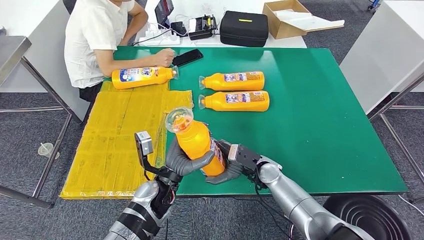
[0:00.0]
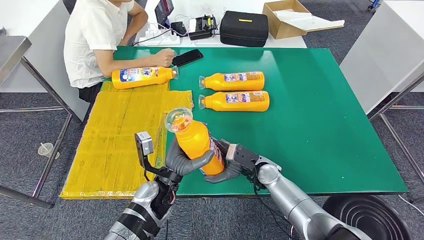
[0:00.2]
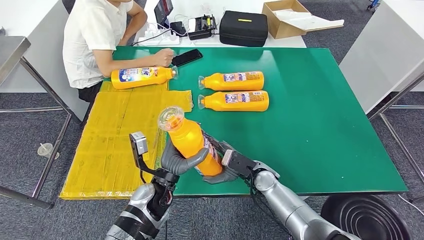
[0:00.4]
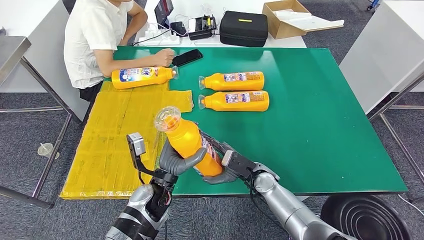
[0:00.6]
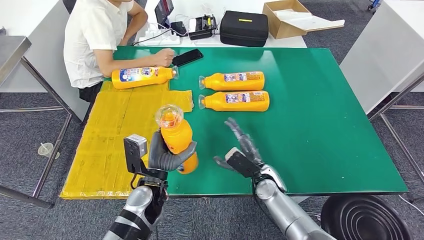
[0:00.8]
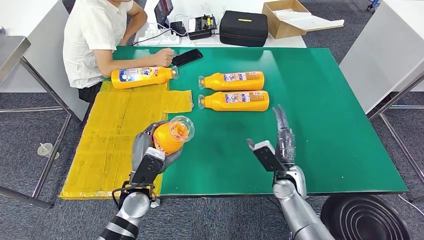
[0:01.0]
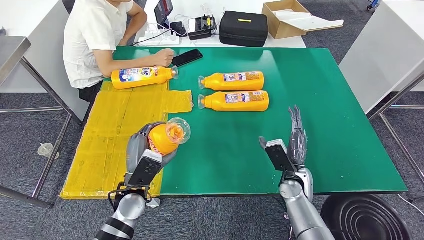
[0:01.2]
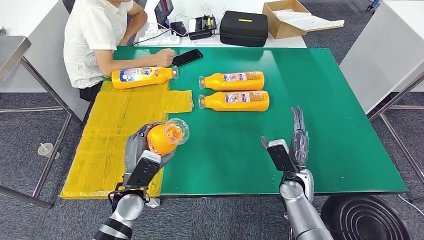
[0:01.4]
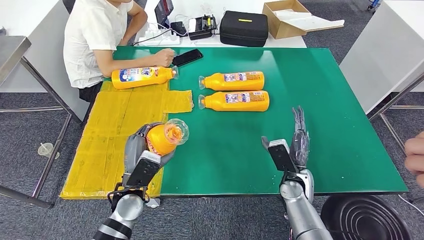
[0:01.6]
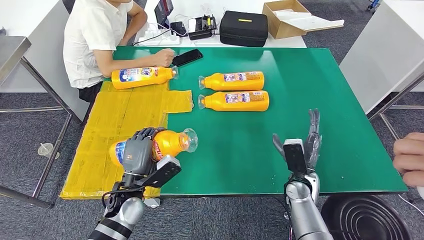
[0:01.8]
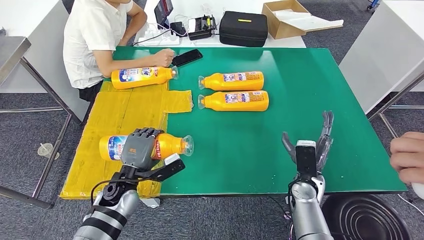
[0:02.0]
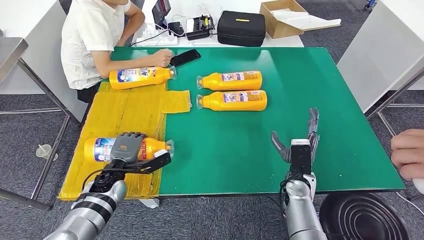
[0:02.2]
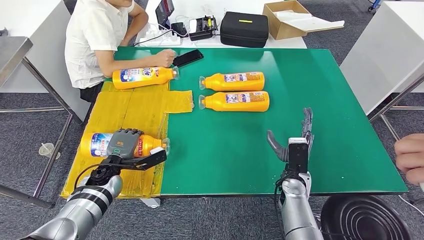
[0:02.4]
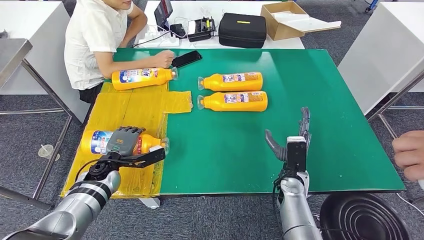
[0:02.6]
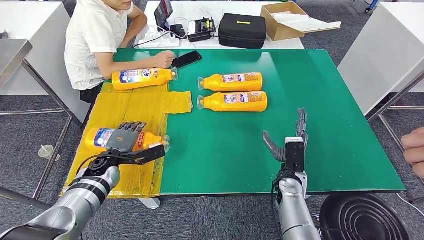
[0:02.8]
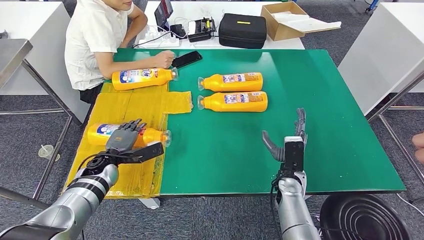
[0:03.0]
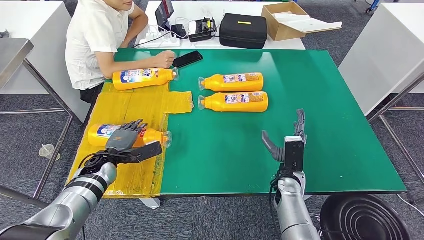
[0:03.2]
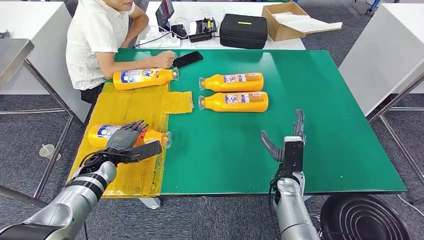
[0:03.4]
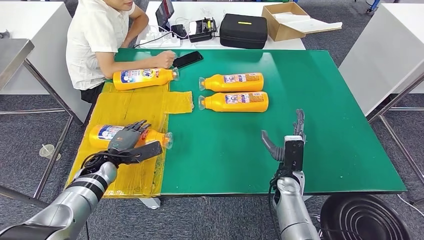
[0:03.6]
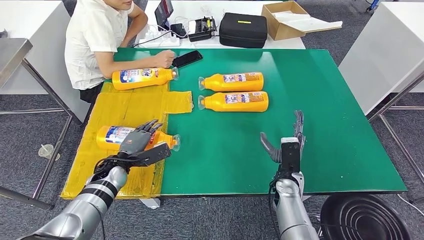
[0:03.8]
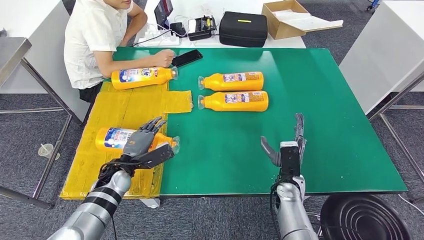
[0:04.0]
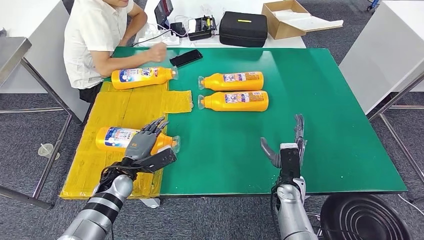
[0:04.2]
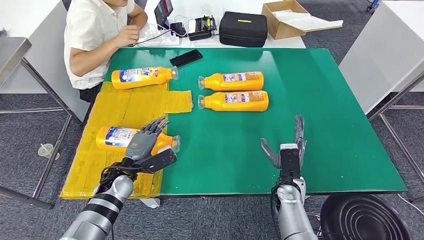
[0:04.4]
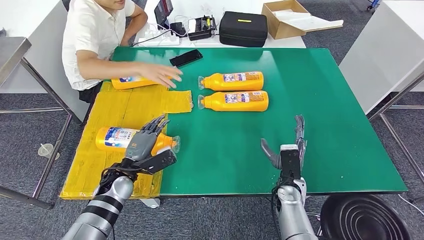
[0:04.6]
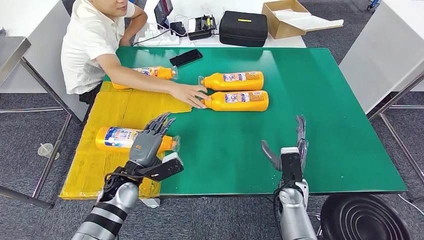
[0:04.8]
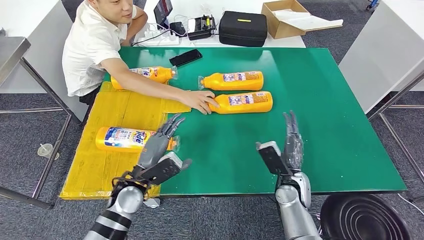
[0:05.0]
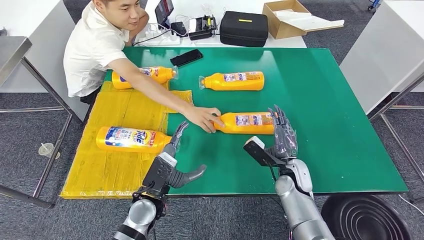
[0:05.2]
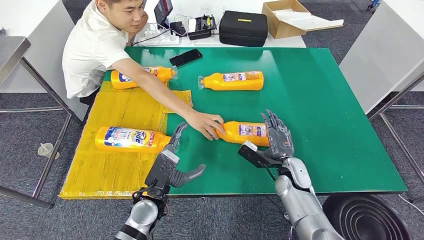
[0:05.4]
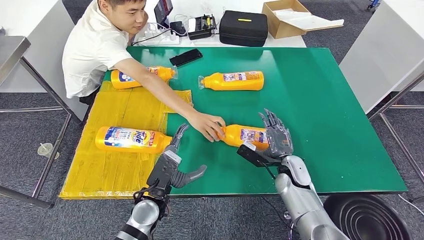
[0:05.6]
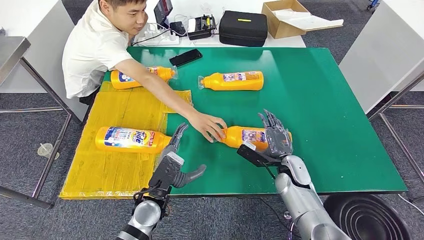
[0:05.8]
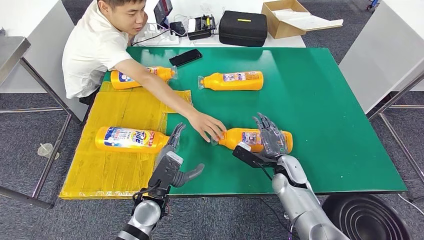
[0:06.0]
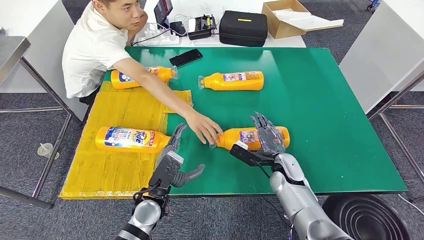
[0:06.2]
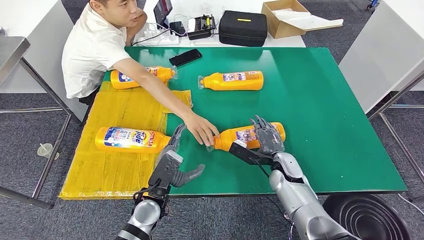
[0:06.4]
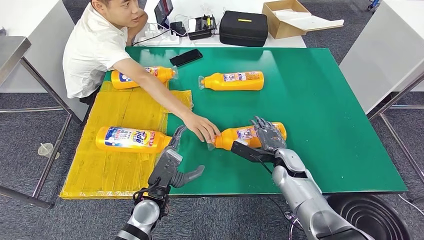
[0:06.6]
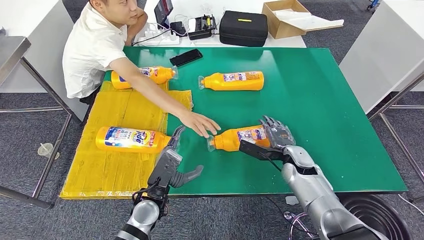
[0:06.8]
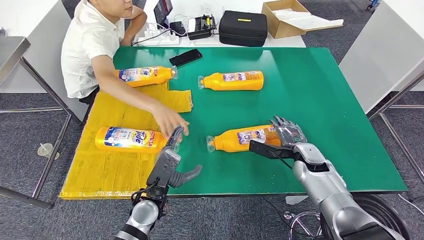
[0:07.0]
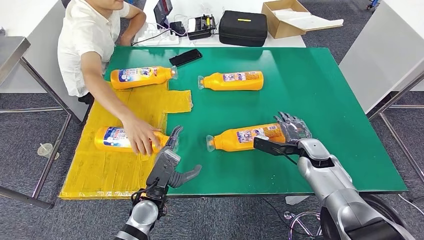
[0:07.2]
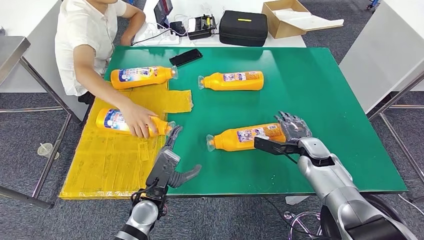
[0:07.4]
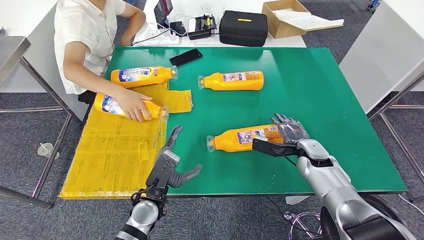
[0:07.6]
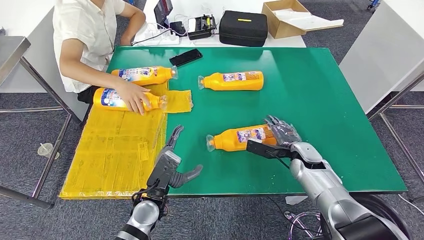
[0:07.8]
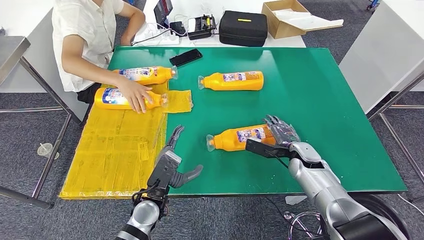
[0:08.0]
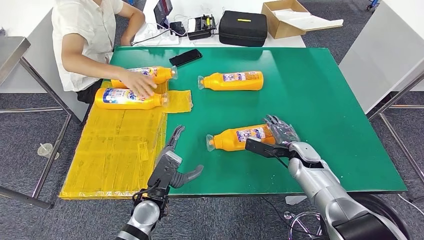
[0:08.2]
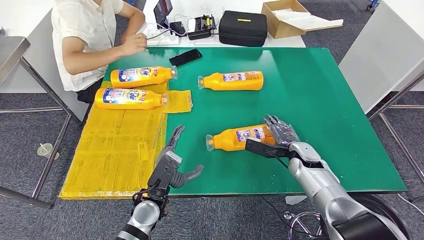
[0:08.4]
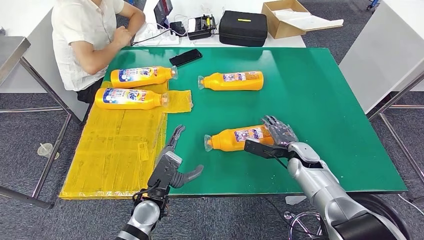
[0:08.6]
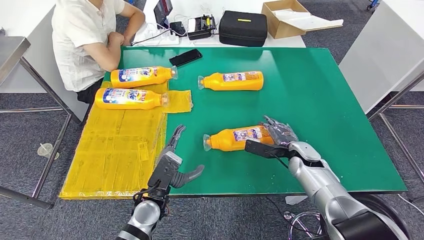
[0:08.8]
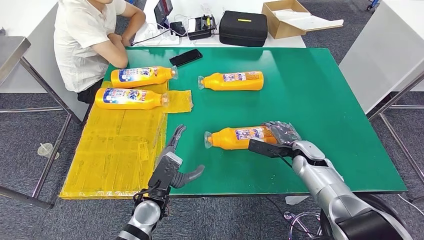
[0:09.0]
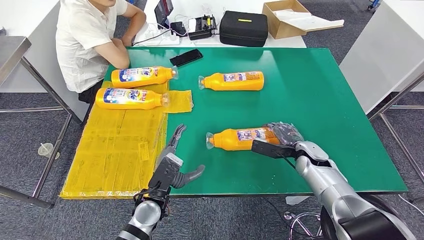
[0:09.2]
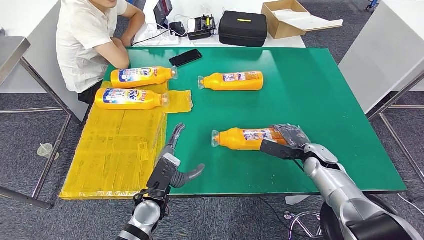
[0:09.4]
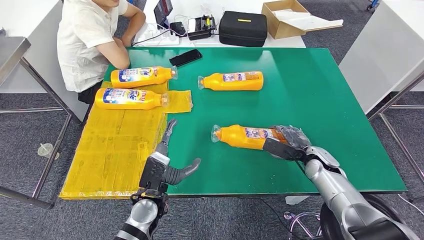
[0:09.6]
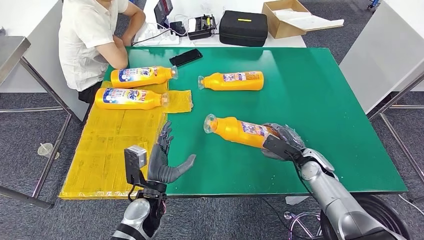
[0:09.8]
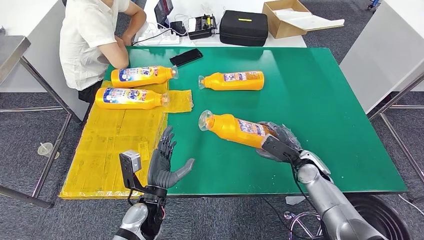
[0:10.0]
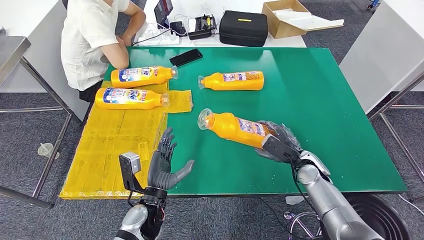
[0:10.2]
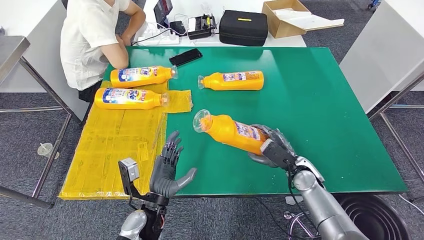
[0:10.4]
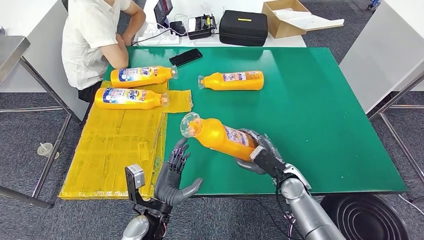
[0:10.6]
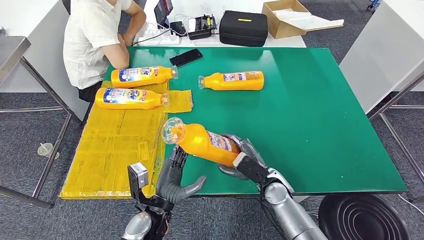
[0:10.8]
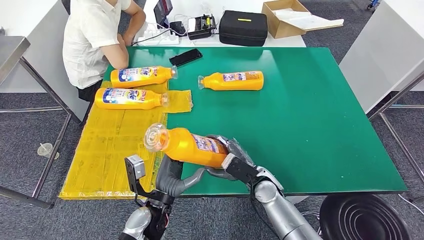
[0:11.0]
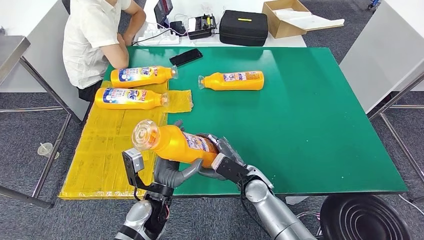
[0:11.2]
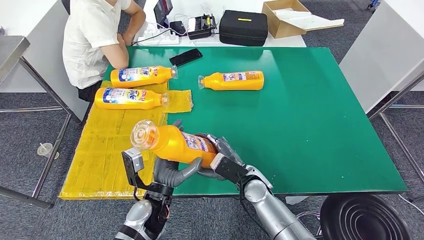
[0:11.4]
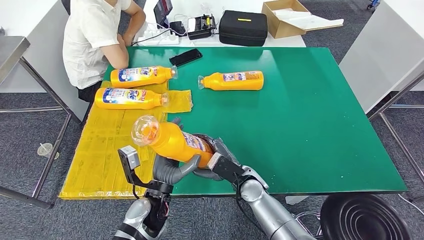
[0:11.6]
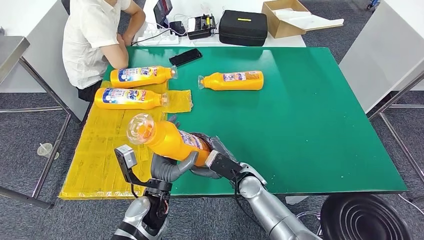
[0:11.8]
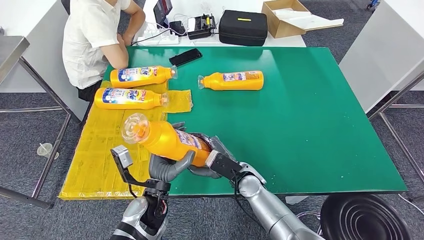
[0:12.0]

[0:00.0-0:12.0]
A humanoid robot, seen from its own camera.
Step, 0:01.8 to 0:03.4: Flip the fast-moving consumer goods bottle to the front side.
0:00.0 to 0:01.6: The left hand goes roughly 10 cm to the left; the right hand travels to the right by about 10 cm.
0:03.0 to 0:04.4: The left hand goes roughly 5 cm to the right.
0:07.6 to 0:09.0: The hands stay close to where they were, moving slightly.
0:09.0 to 0:10.4: The right hand travels backward by some 5 cm.
0:10.4 to 0:12.0: The right hand heads to the left, covering some 15 cm.

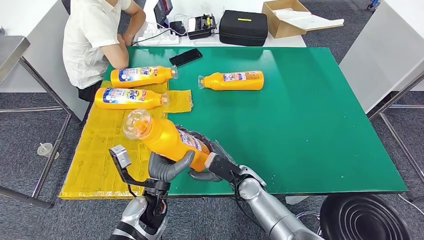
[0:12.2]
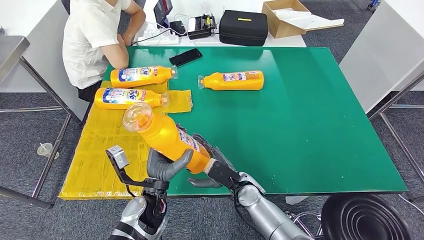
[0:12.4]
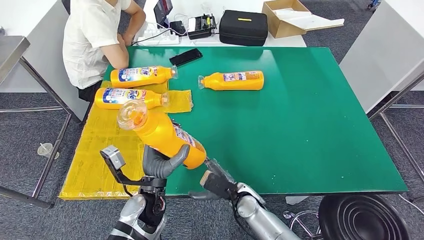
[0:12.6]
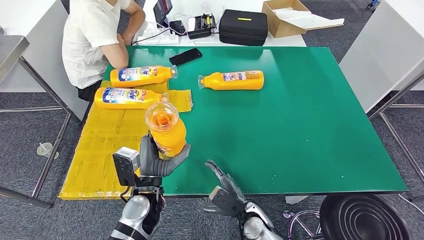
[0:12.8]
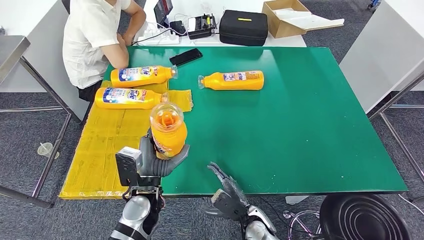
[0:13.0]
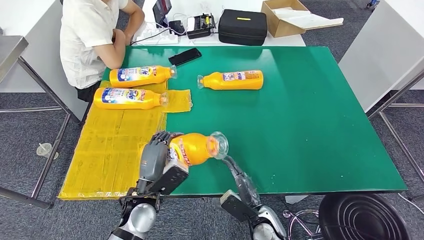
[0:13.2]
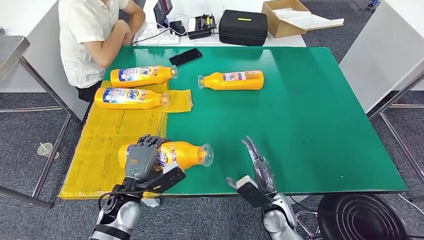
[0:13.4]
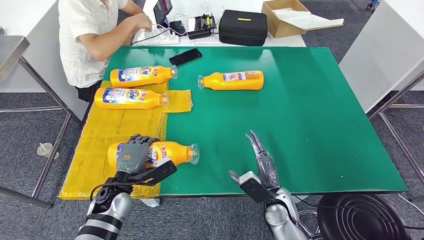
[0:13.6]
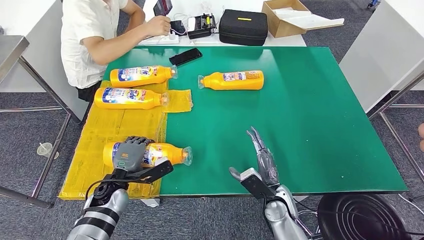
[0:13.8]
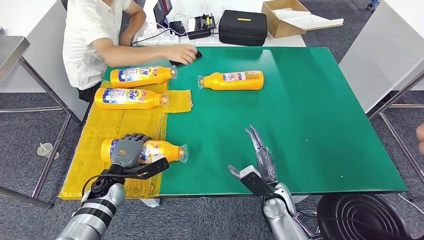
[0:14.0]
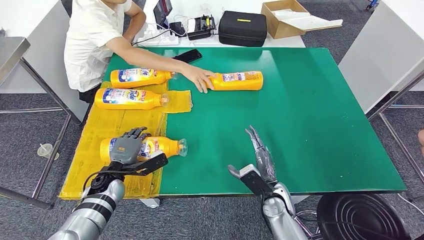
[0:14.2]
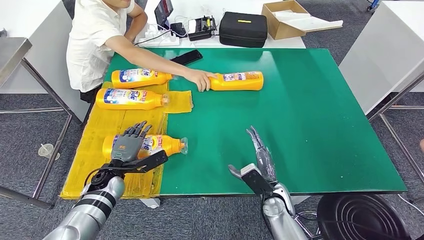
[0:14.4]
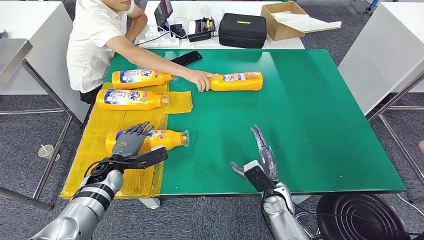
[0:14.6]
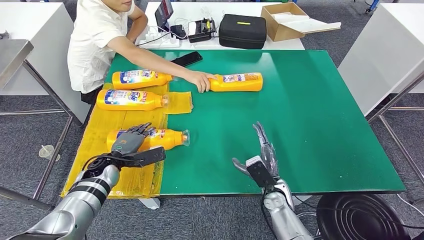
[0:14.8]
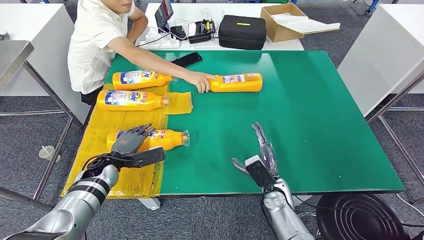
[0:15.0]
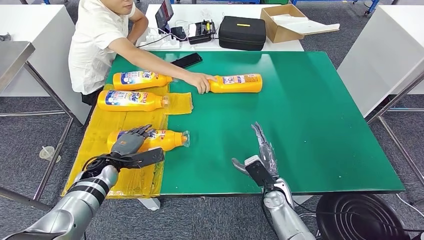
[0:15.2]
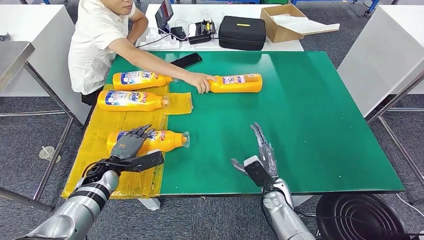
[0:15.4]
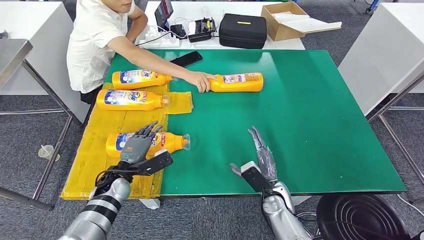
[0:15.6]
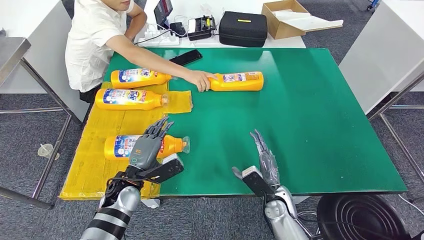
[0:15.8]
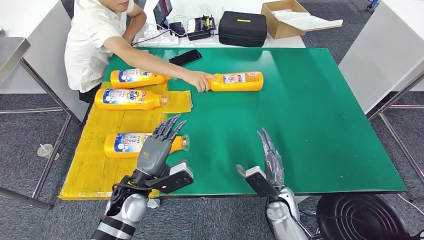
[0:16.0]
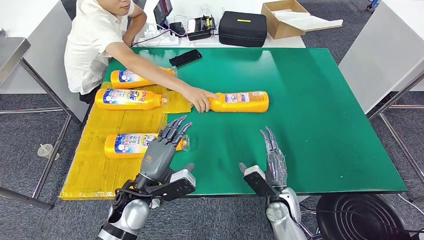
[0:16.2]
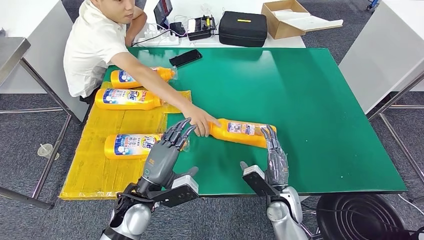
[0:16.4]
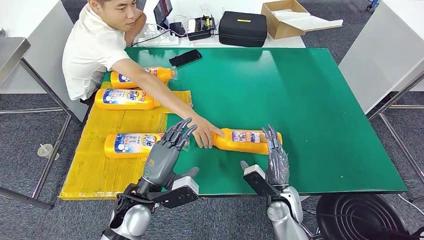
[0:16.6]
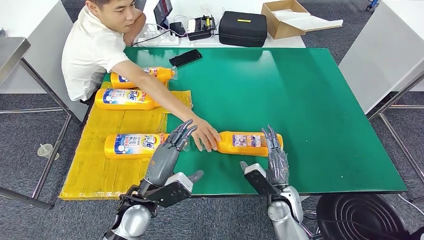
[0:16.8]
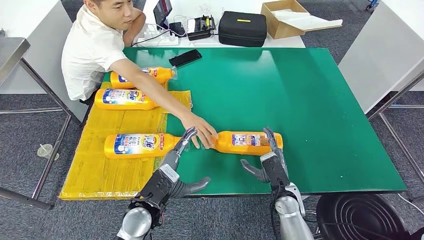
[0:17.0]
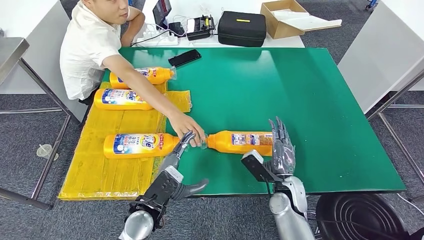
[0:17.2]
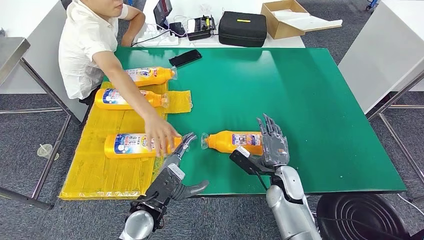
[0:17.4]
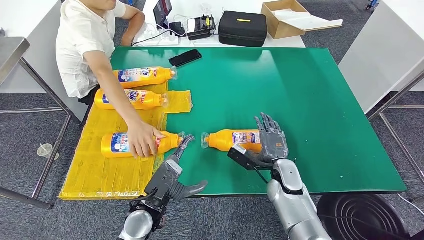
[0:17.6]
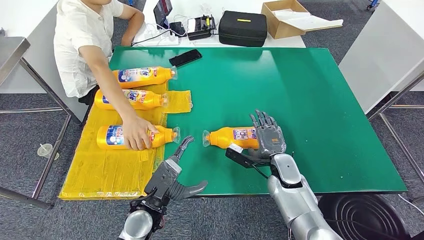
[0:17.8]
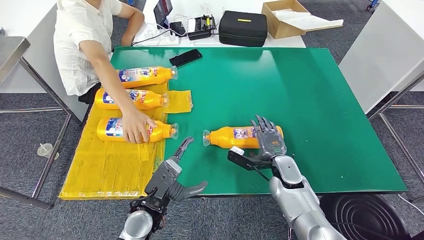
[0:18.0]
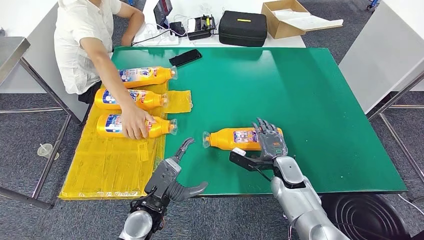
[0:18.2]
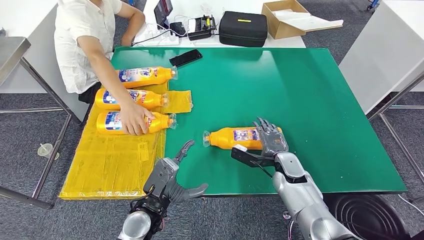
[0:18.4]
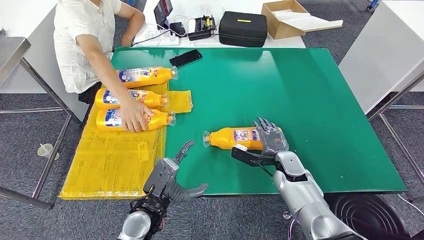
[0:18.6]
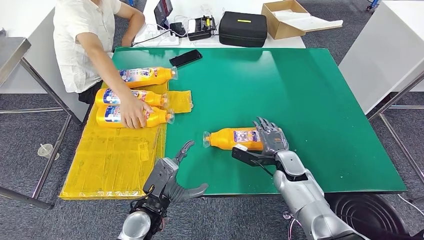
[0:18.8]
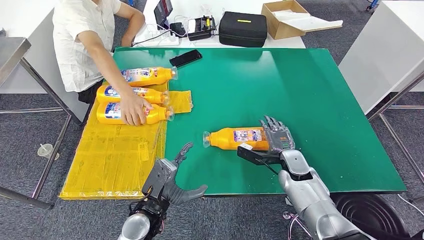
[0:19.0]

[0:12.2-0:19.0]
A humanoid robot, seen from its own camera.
Step, 0:12.6 to 0:14.8: Flip the fast-moving consumer goods bottle to the front side.
0:12.2 to 0:13.6: The right hand goes about 10 cm to the right and backward; the left hand shifts about 10 cm to the left.
0:16.2 to 0:17.6: The left hand changes place by roughly 5 cm, while the right hand heads forward, covering roughly 5 cm.
0:17.6 to 0:19.0: The right hand shifts by some 5 cm.
